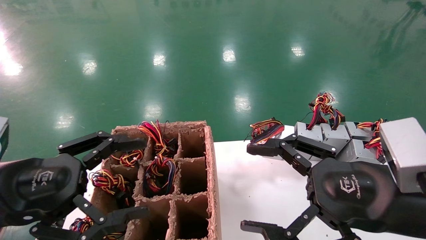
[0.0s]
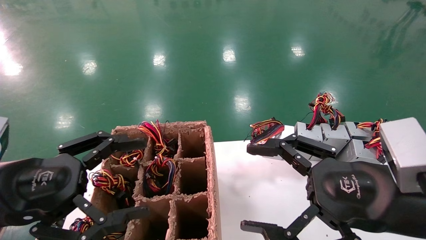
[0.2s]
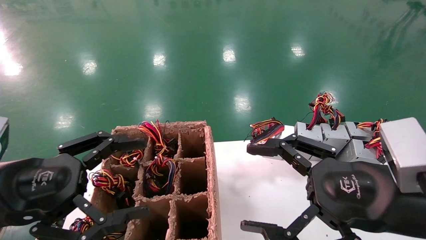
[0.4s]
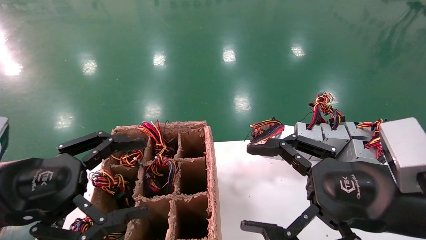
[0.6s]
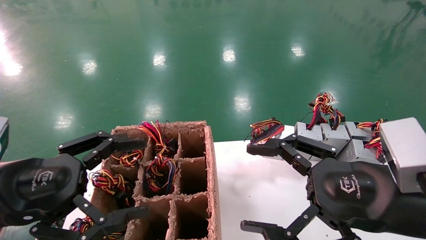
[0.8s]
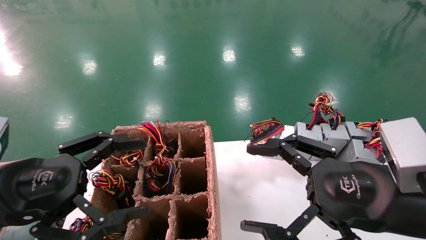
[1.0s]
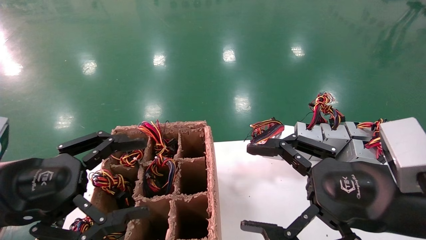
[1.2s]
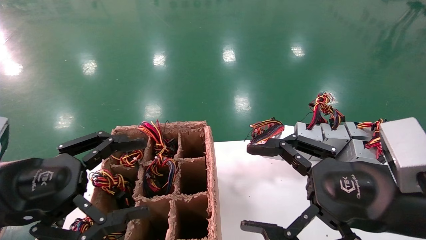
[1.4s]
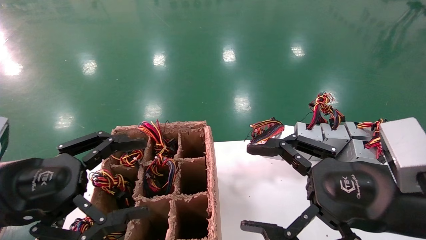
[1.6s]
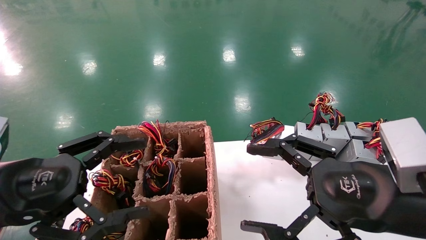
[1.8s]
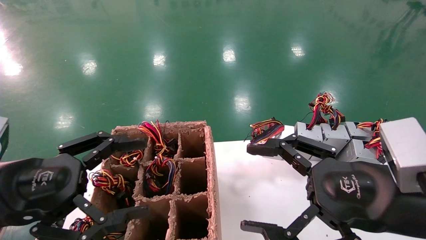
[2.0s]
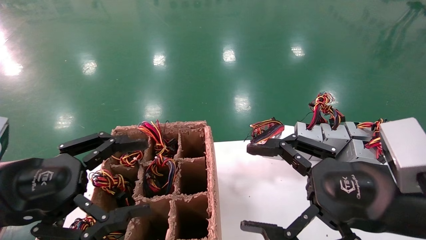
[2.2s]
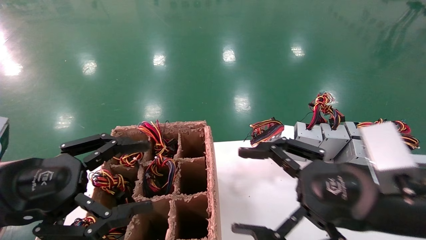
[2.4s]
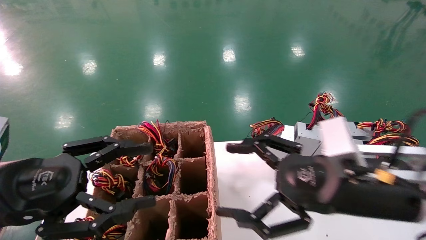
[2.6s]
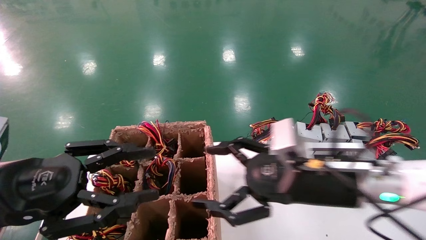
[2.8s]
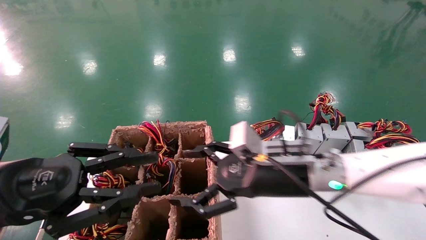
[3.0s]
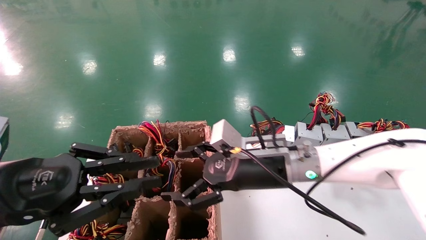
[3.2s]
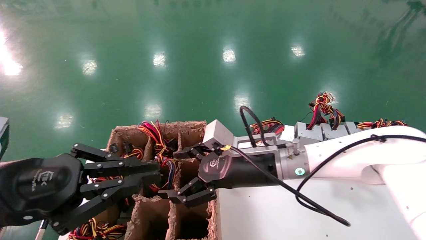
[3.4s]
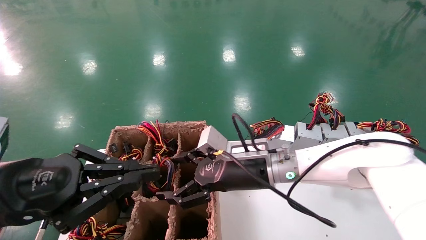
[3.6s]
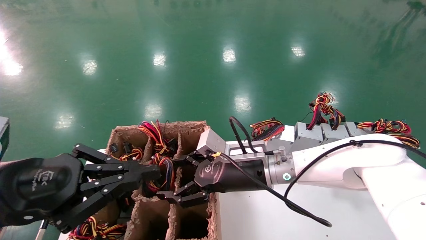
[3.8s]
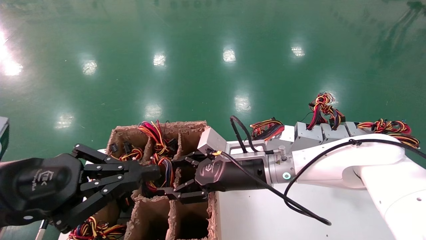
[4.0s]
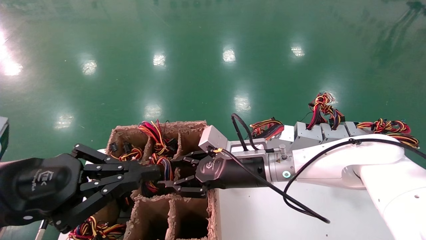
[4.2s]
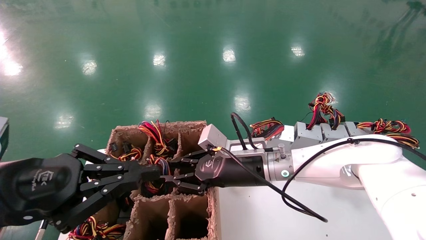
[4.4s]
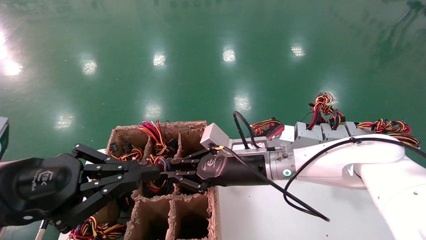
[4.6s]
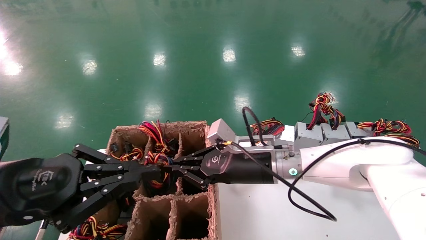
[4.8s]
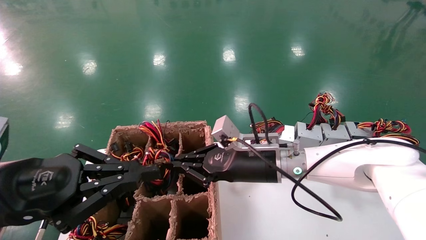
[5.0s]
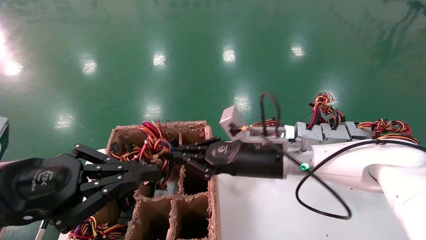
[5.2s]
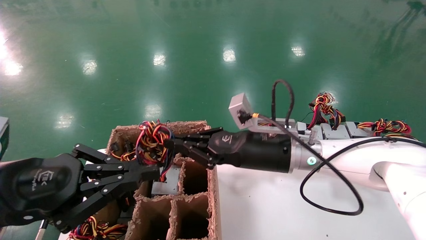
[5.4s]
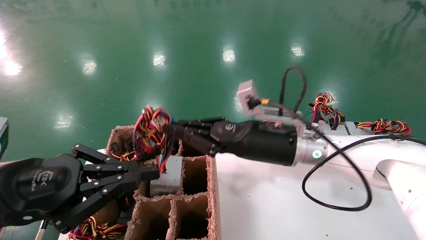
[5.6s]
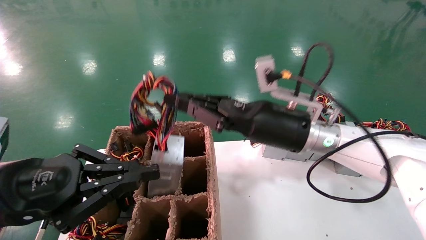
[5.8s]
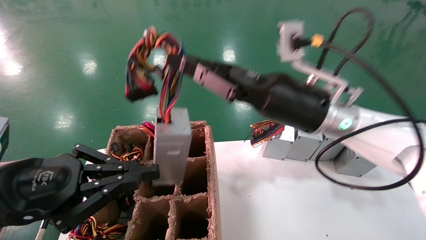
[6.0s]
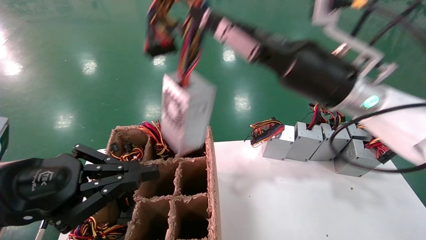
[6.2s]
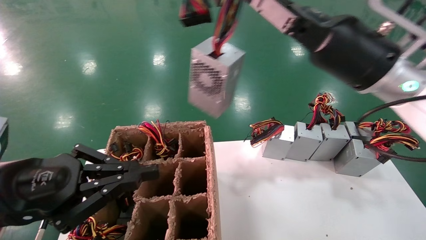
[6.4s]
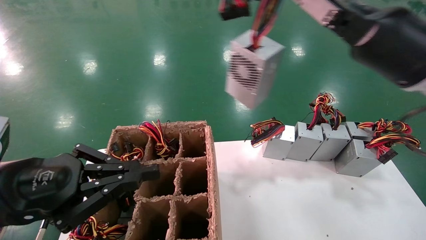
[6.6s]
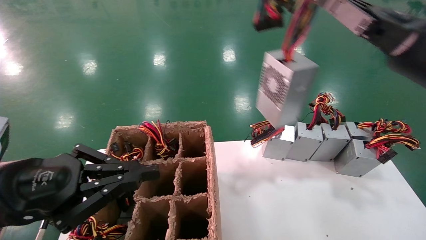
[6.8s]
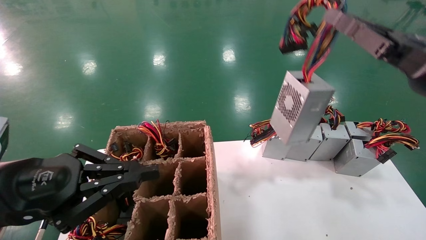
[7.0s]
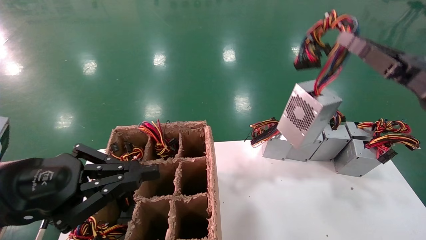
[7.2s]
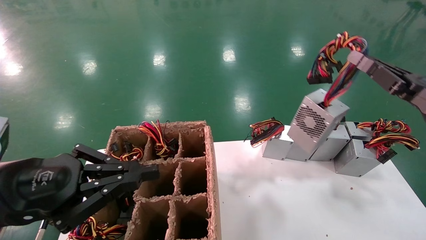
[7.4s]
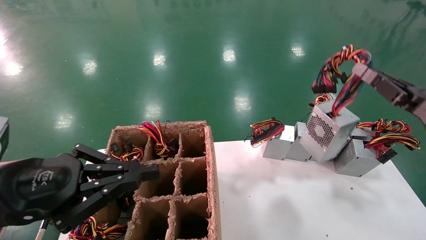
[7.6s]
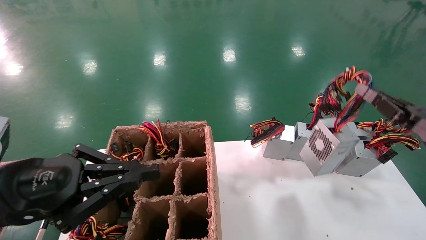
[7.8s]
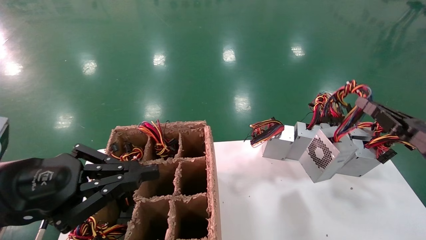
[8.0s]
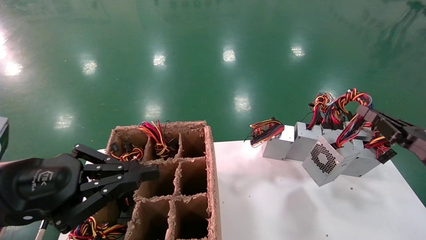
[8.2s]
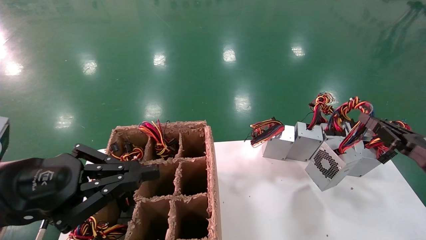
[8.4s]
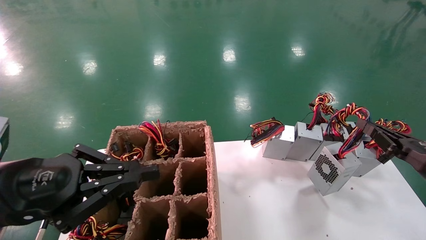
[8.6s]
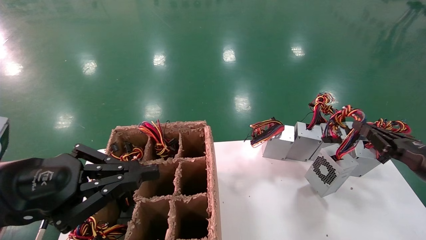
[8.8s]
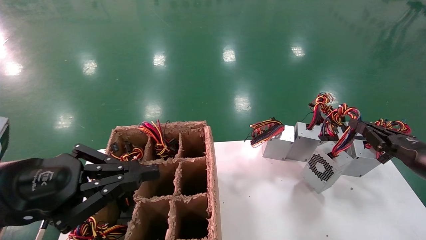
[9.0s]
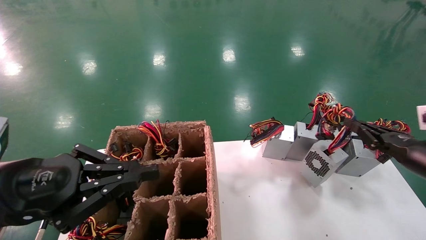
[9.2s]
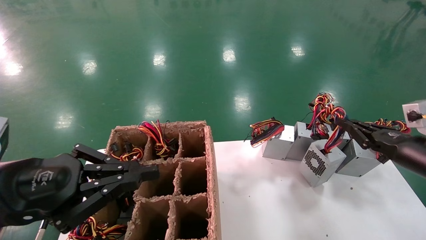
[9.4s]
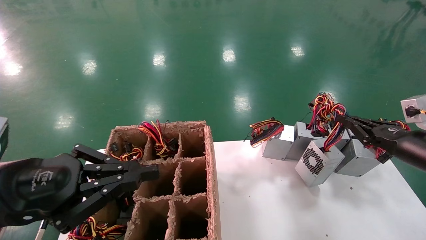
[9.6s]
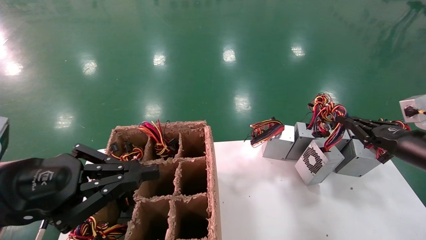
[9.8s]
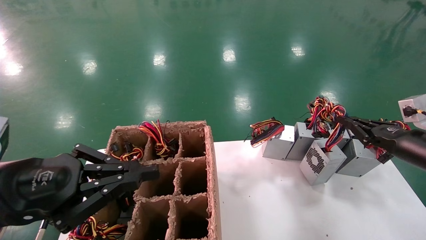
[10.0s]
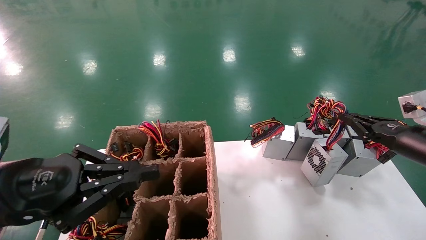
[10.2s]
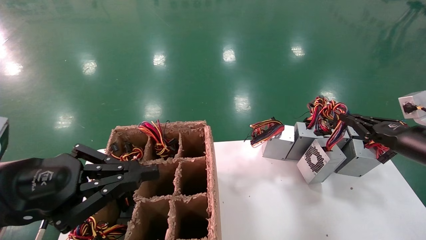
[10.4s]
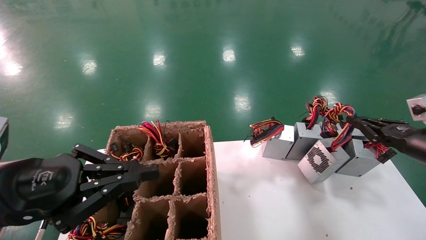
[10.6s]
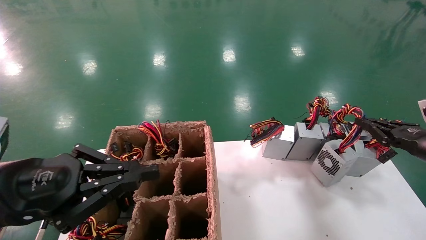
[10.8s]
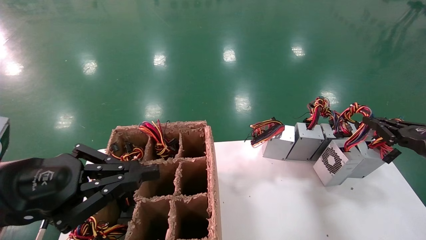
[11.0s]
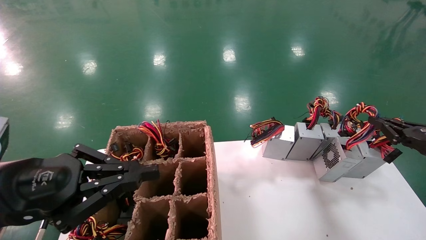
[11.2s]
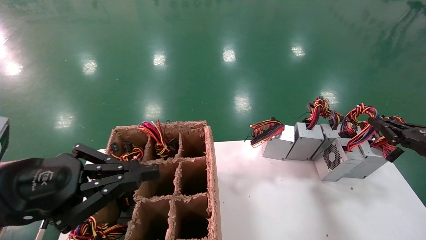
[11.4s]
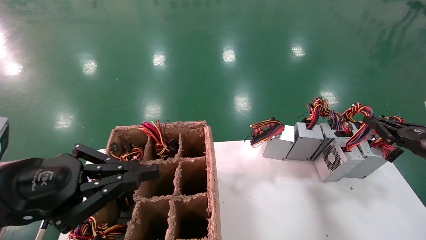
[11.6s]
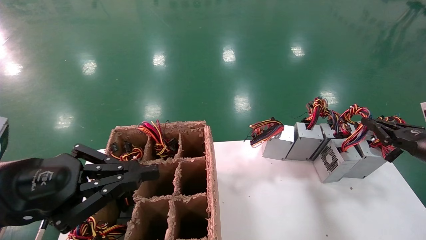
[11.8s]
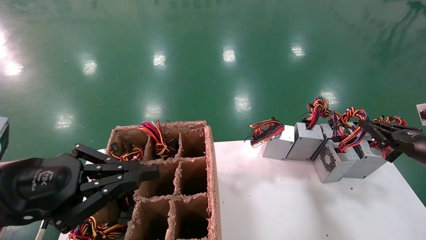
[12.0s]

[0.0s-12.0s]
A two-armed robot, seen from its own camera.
Step, 2.6s to 4.6s: Grab the main unit power supply from the containment box.
0.0s to 1.6s: Neither gripper changes place.
1.6s to 3.0s: The left gripper closes up. The right gripper moves forward and to the left, about 15 cm.
3.0s to 4.4s: The right gripper heads forward, covering roughly 5 cm, and closes. The left gripper closes its fingers.
4.4s to 6.0s: The right gripper heads upward and to the right, covering approximately 15 cm, and closes.
6.0s to 7.6s: The right gripper shifts some 25 cm to the right.
7.6s to 9.0s: The right gripper heads downward, covering some 10 cm.
9.0s to 10.4s: The right gripper goes about 5 cm forward.
10.4s to 12.0s: The grippers stay close to where they were, moving slightly.

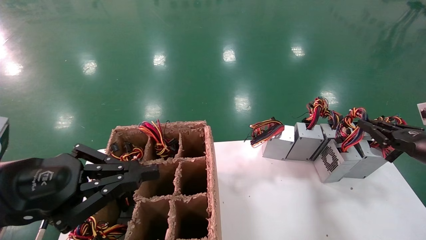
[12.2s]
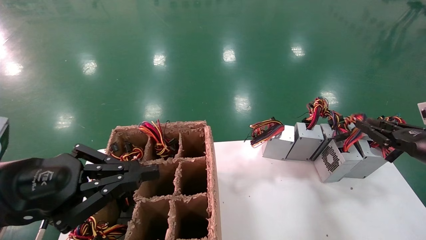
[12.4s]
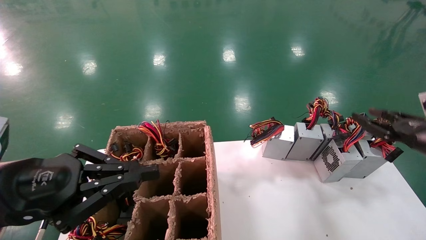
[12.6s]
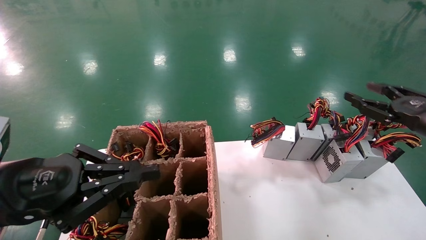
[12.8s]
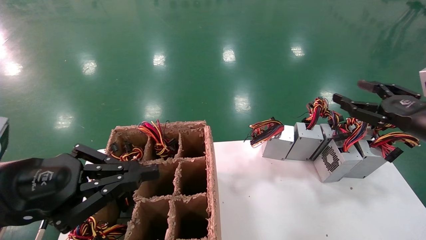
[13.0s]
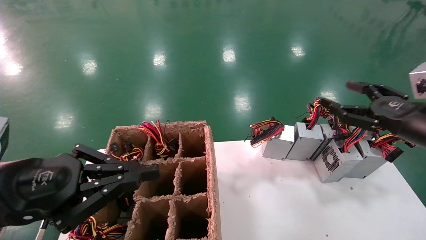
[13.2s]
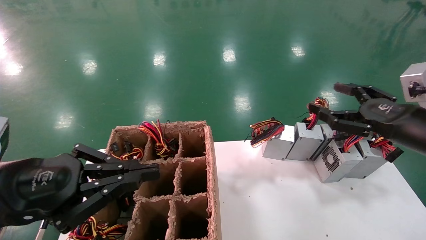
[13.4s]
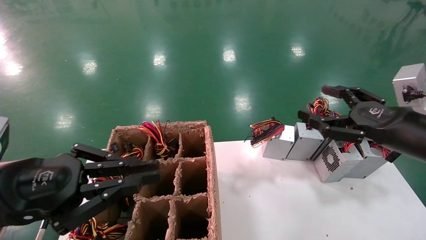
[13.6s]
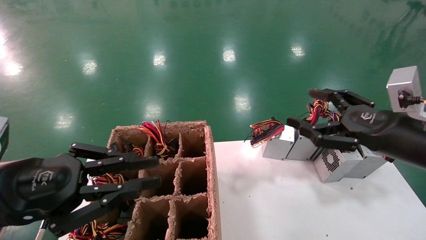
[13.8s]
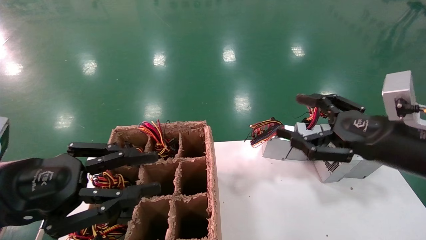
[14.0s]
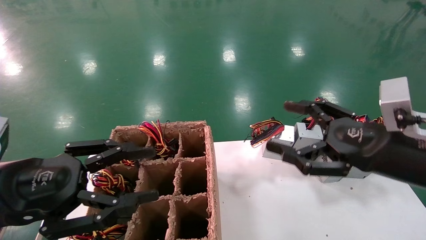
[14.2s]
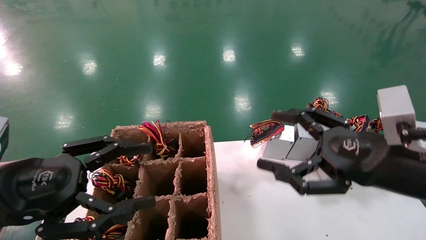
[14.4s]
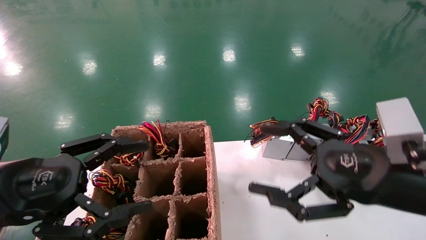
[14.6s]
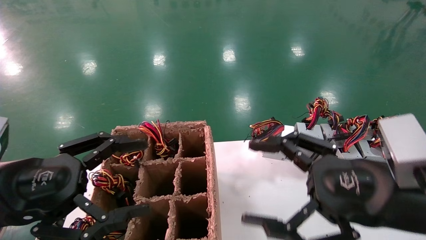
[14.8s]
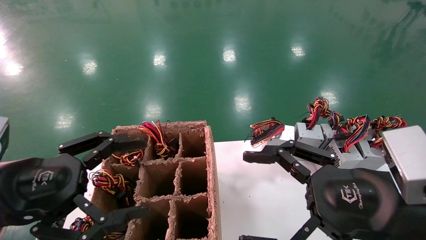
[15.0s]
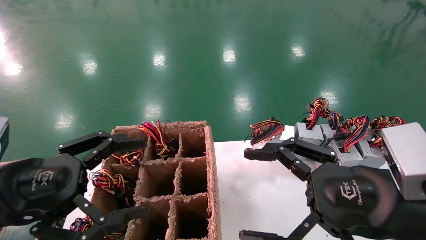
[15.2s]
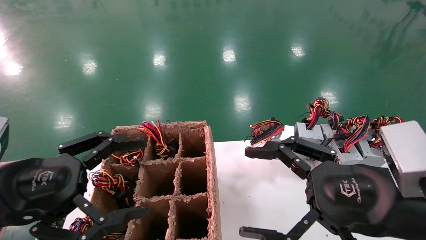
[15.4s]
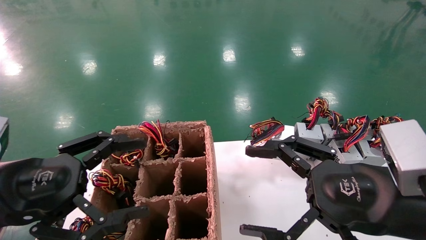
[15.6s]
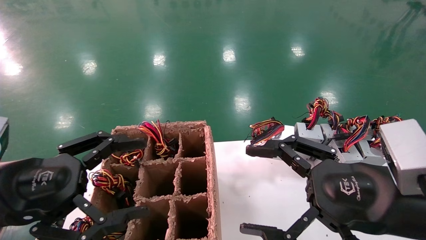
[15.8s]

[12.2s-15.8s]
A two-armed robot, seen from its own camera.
12.2s to 14.0s: The right gripper heads to the left and backward, covering some 20 cm, and opens.
14.0s to 15.8s: The left gripper opens its fingers. The right gripper travels backward and to the left by roughly 10 cm.

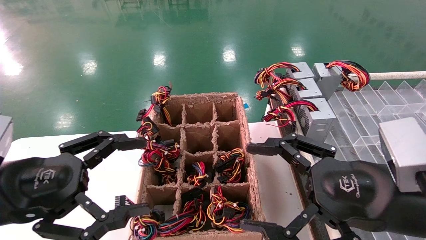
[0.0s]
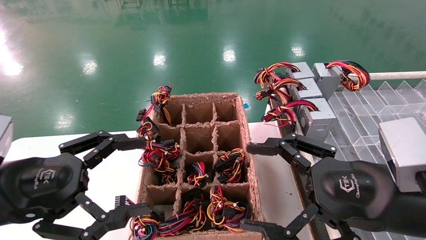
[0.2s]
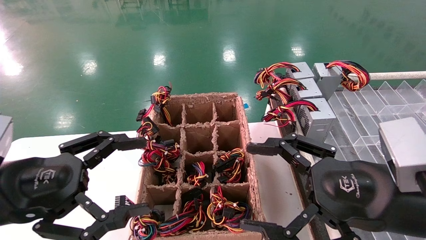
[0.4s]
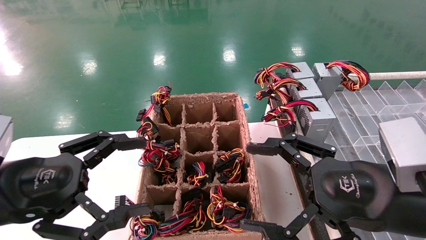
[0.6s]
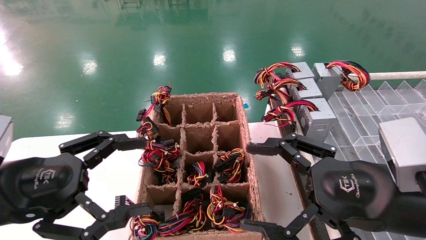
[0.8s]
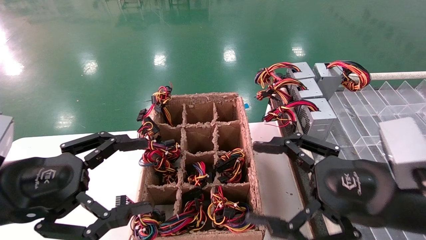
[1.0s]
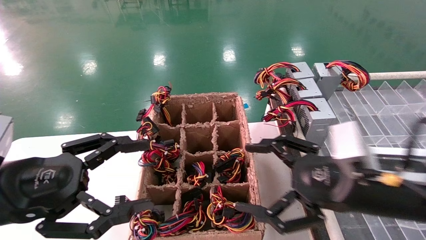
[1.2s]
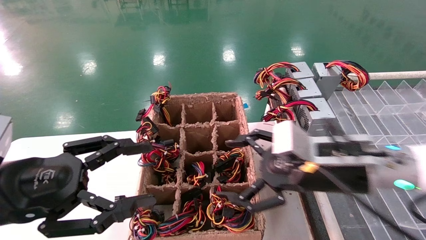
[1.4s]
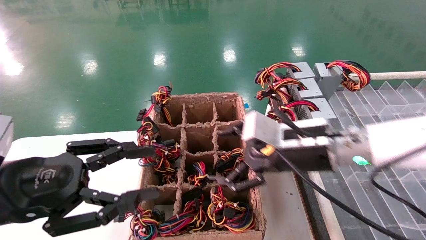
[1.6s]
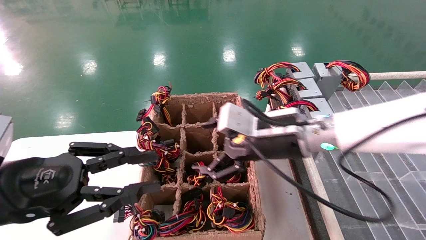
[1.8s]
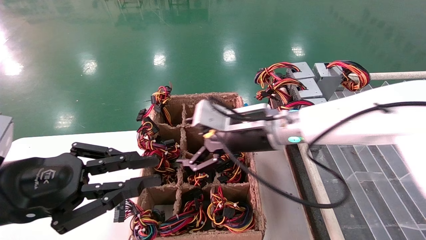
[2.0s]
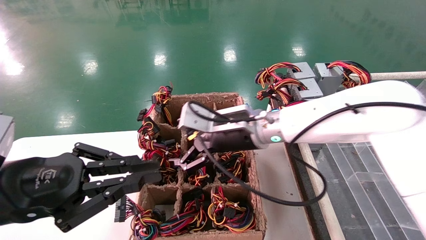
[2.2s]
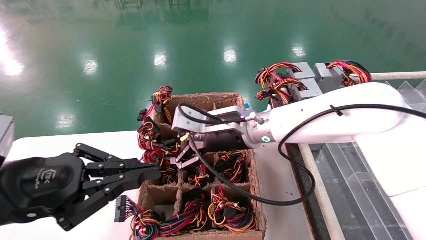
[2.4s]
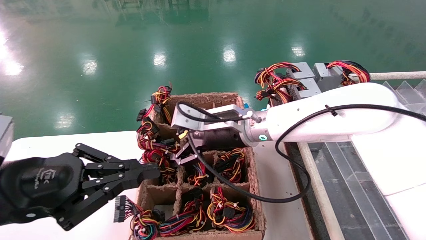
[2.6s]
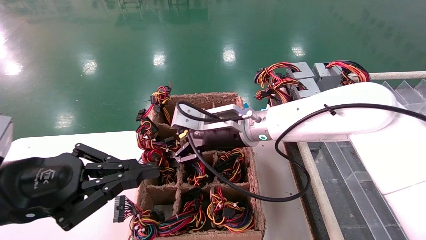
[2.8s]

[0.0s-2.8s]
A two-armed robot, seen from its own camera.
0.0s to 1.4s: The right gripper goes roughly 10 cm forward.
1.4s to 2.8s: The left gripper closes its fingers. The right gripper is displaced to the left and forward by some 20 cm.
